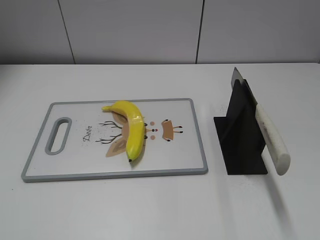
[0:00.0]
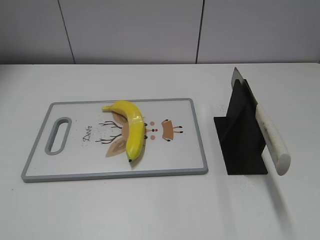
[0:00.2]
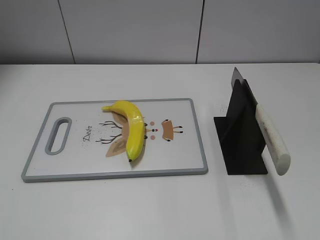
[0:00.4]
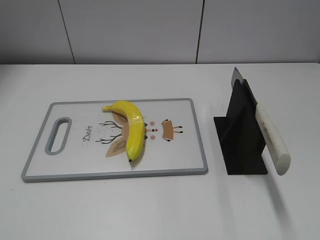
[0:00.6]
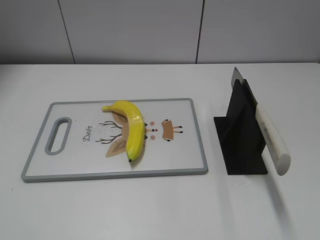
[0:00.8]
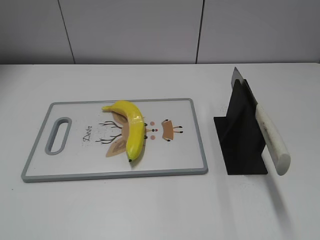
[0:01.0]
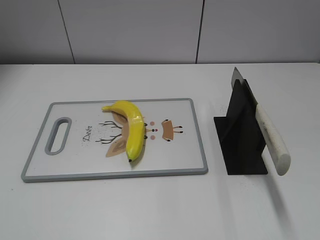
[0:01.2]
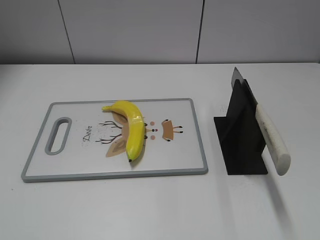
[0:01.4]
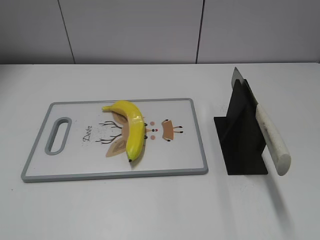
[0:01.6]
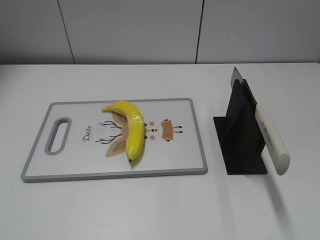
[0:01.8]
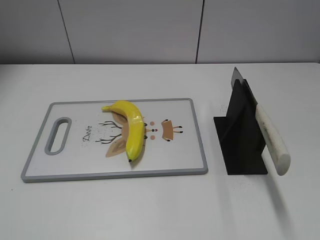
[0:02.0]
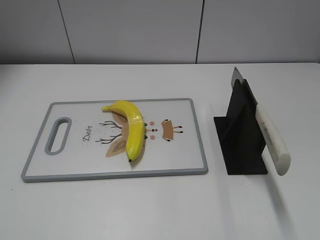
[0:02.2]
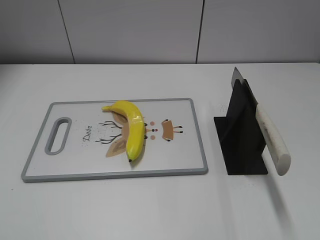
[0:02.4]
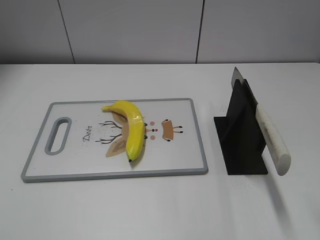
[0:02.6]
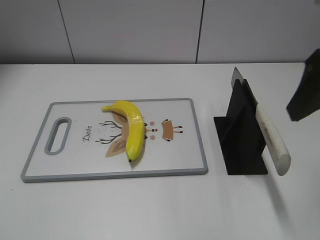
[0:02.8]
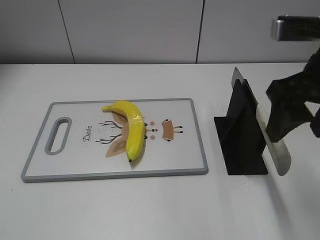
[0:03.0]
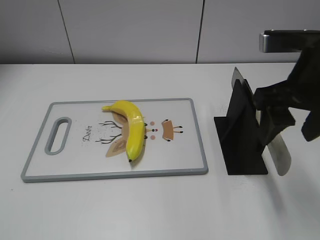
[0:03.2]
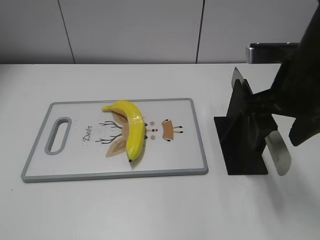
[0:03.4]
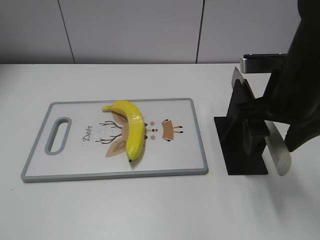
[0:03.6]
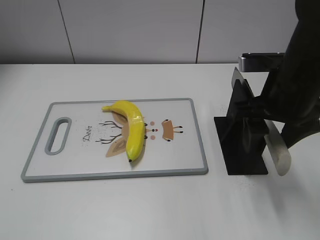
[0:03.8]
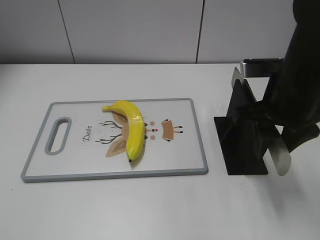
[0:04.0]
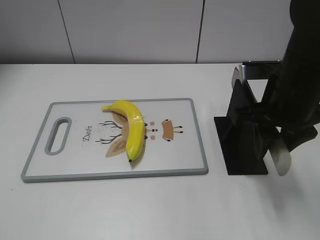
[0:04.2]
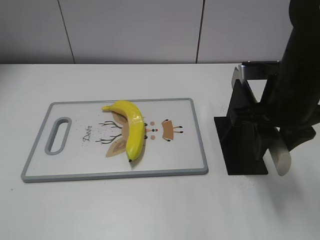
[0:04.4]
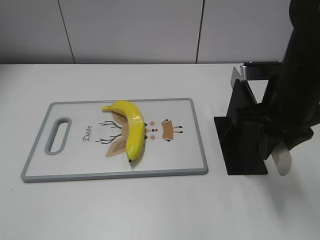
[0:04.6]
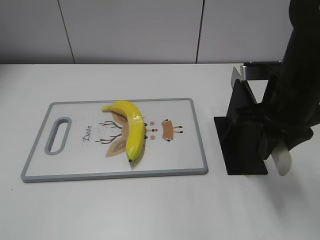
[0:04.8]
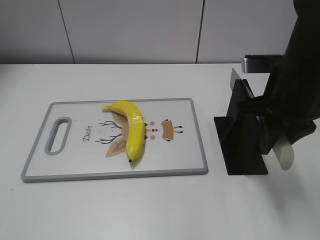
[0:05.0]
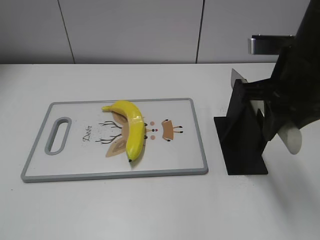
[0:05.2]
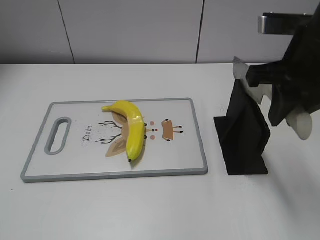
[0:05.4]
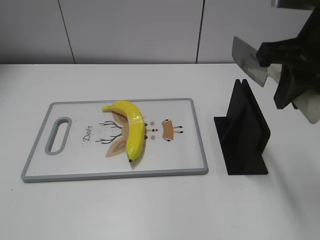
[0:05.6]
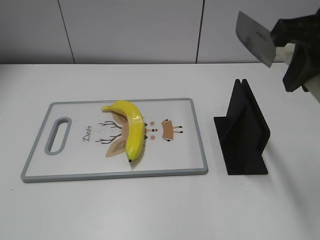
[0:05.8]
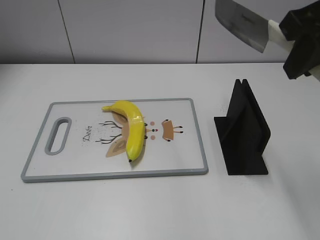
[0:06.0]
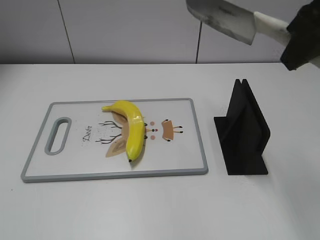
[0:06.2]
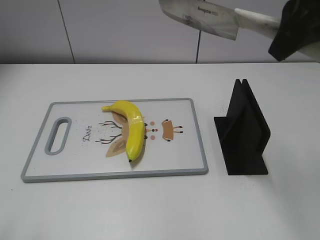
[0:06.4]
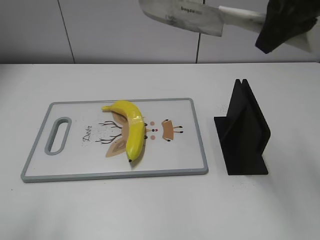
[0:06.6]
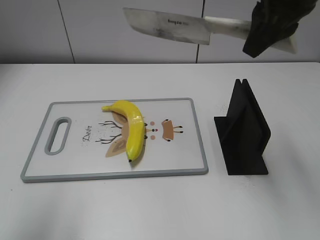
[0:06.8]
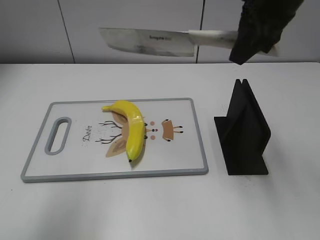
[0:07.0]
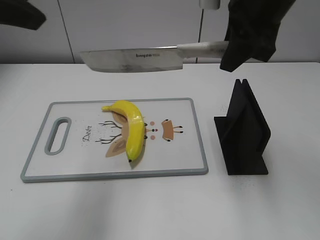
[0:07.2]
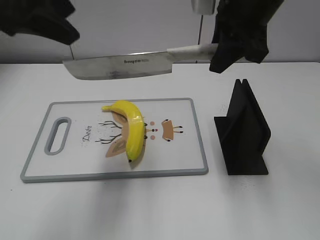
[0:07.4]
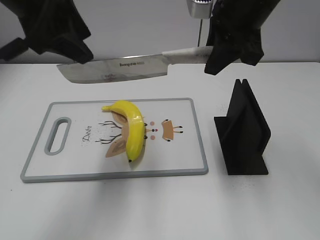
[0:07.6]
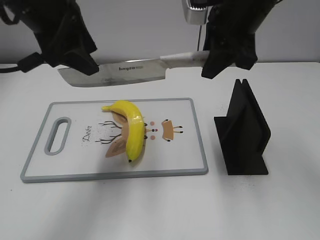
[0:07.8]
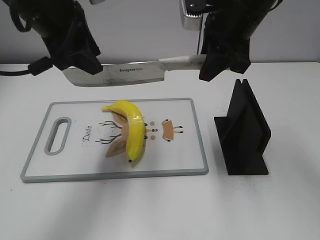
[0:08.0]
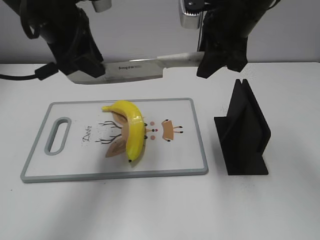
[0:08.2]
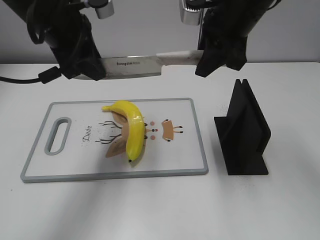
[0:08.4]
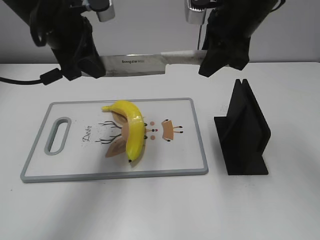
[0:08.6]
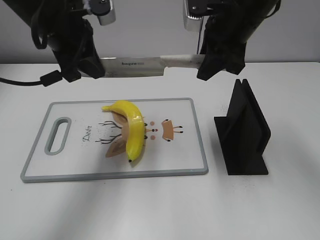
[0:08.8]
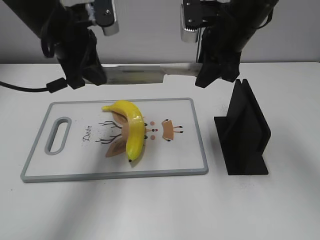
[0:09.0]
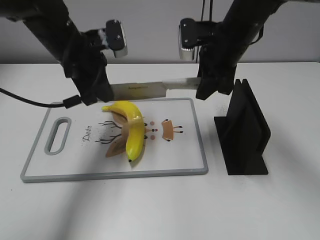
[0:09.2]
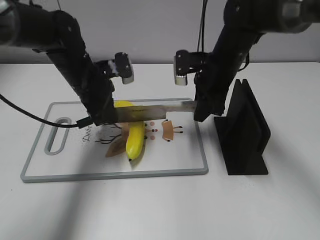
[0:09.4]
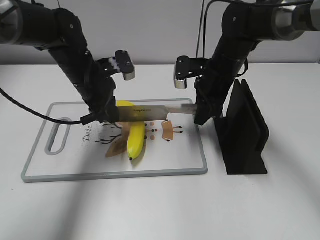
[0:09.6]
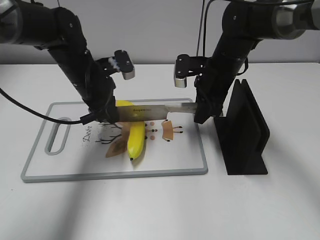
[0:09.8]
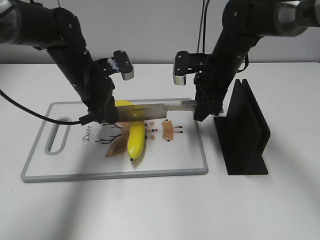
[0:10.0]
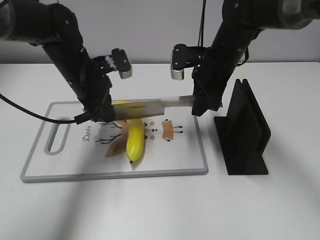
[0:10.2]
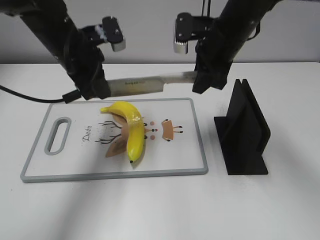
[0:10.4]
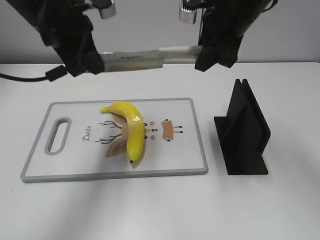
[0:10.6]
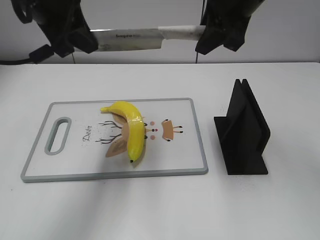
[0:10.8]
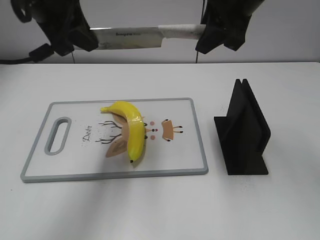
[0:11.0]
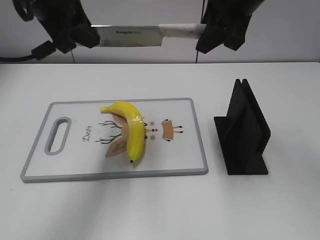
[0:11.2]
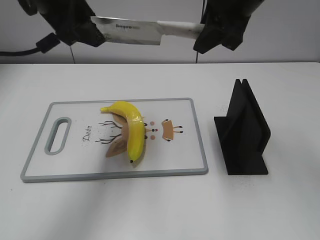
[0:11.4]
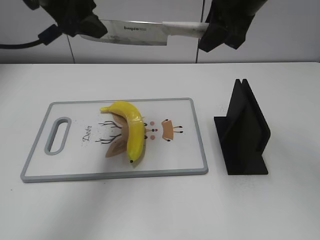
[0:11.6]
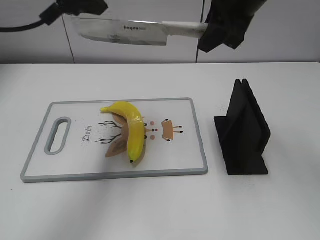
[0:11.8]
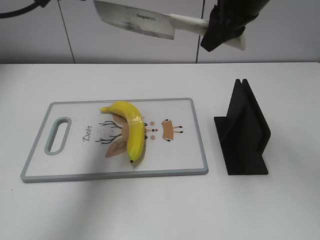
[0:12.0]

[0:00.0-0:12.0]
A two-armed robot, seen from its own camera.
Task of the whole recording: cut plastic banana.
Step, 0:00.0 to 0:06.0: Grab the knife handle with your right hand.
Step, 0:06.2 to 0:11.0: Lift the knife with your right hand.
0:01.6 to 0:03.0: The right gripper moves forward and to the left, roughly 25 cm.
0:03.0 to 0:04.4: The right gripper heads downward, covering about 5 cm, and closes its fingers.
0:04.4 to 0:06.0: The right gripper shifts some 15 cm upward.
0:06.0 to 0:07.6: The left gripper travels forward and to the right by roughly 35 cm, while the right gripper moves forward, to the left and downward, approximately 15 cm.
0:07.6 to 0:09.0: The right gripper travels downward by about 5 cm. The left gripper goes approximately 10 cm downward and forward, and closes.
0:09.0 to 0:10.4: The left gripper reaches some 10 cm downward, then returns, while the right gripper reaches approximately 10 cm downward, then returns.
0:10.4 to 0:12.0: The right gripper travels upward by some 10 cm. Meanwhile the left gripper goes approximately 15 cm upward, and opens.

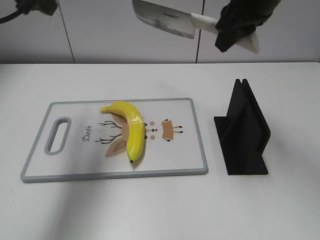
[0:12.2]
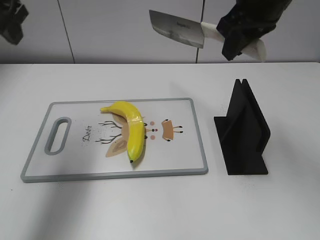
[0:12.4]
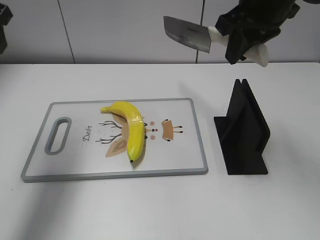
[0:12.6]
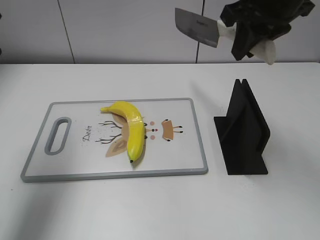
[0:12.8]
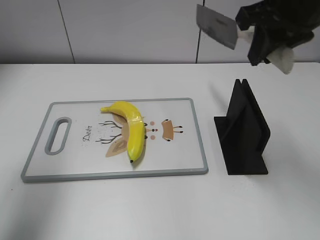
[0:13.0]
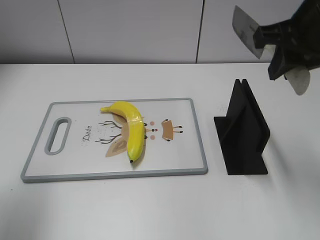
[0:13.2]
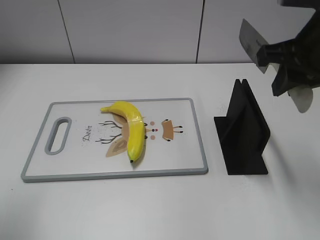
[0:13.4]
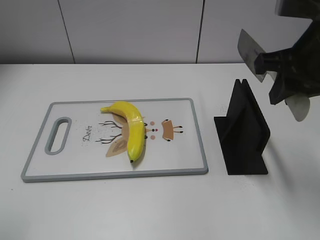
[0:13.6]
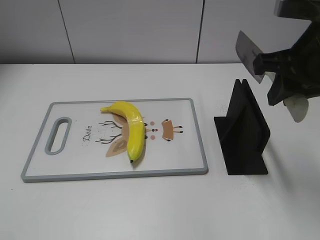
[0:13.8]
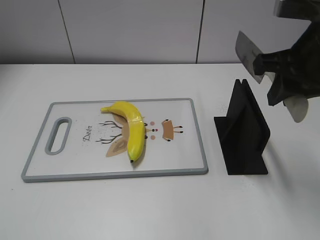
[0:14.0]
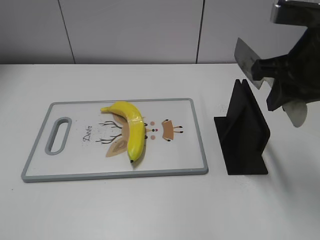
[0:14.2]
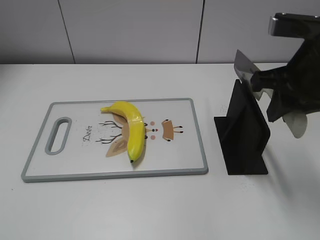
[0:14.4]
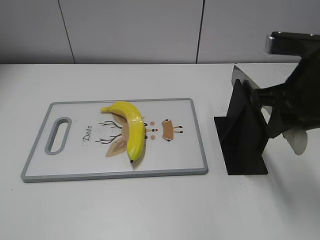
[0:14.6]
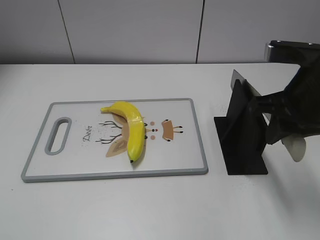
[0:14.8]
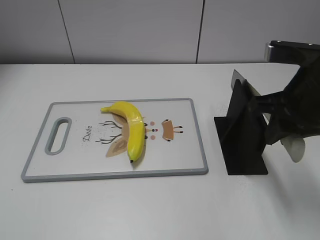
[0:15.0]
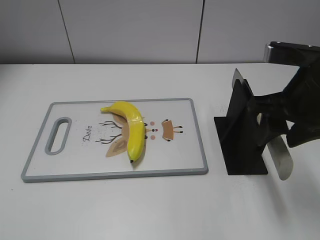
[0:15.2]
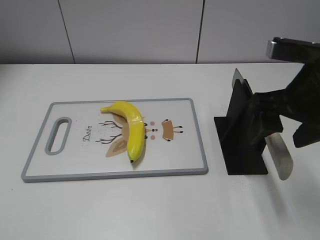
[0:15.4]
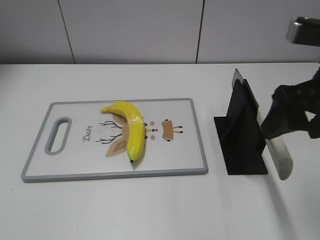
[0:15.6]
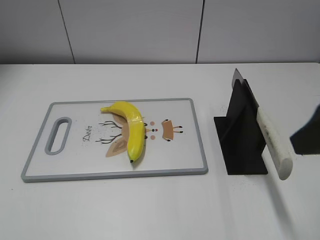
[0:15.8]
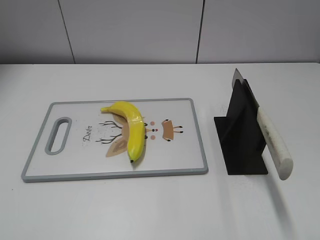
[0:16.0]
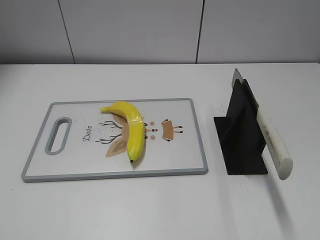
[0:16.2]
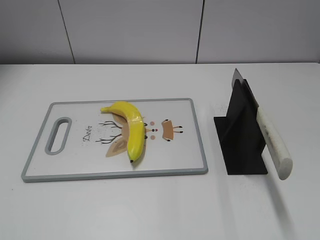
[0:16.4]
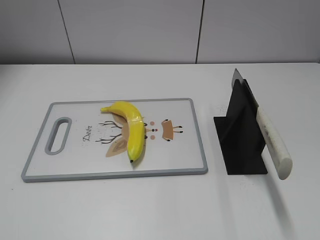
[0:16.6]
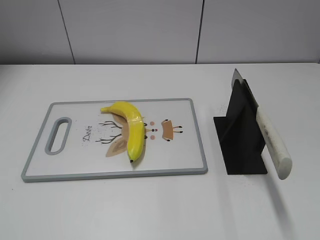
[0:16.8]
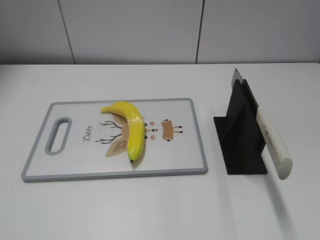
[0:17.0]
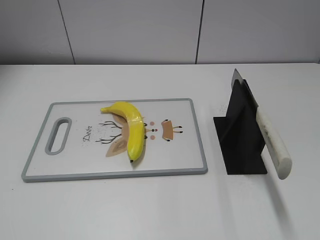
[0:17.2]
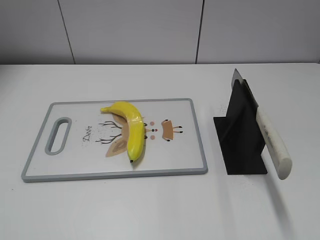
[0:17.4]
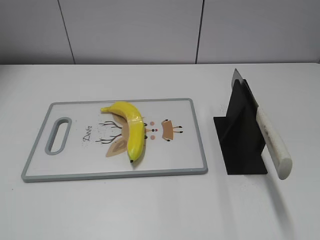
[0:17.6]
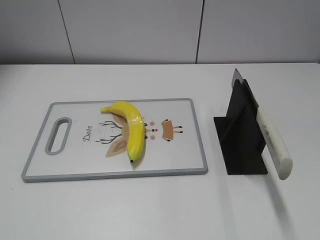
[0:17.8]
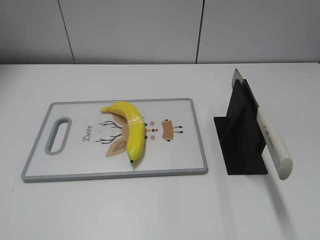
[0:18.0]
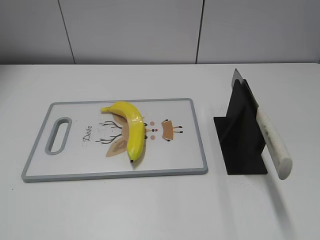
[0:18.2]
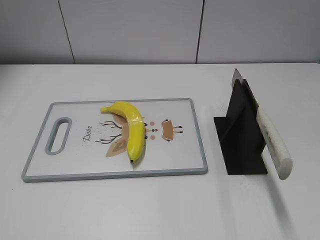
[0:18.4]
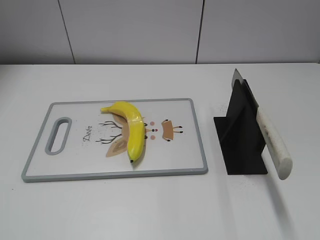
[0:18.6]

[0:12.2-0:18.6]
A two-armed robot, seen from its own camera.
Task of the whole recording: cut plastic banana.
Step, 0:12.6 to 0:14.2: Lift the knife with your right hand.
Step, 0:14.4 to 0:18.6: Place the knife on the storage rack with your right hand.
0:12.2 to 0:13.8: The right gripper is displaced backward and to the right by about 10 cm. Meanwhile the left gripper heads backward, covering approximately 30 cm.
0:13.8 to 0:15.4: The right gripper opens.
0:15.4 to 0:17.0: The right gripper travels backward and to the right by approximately 25 cm.

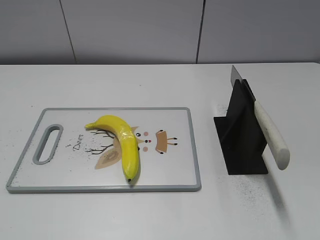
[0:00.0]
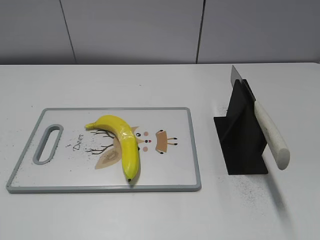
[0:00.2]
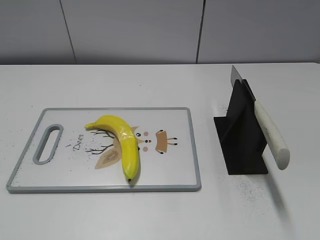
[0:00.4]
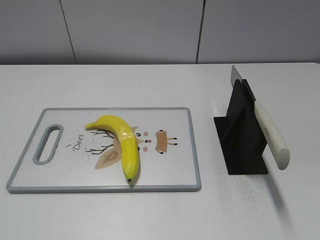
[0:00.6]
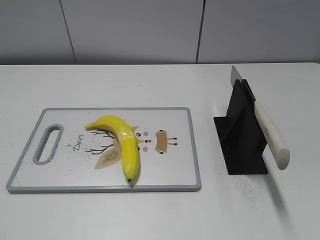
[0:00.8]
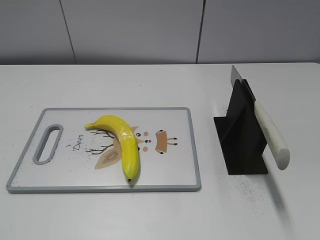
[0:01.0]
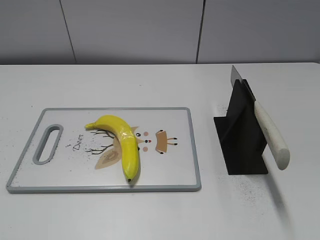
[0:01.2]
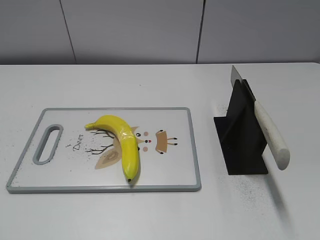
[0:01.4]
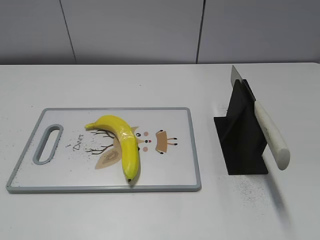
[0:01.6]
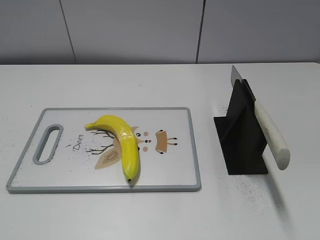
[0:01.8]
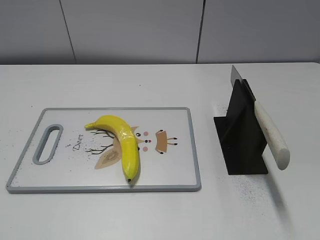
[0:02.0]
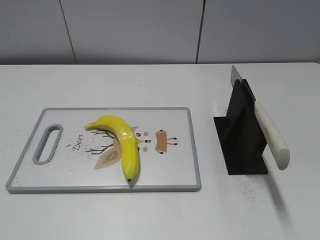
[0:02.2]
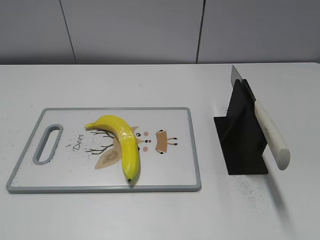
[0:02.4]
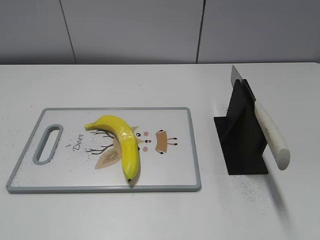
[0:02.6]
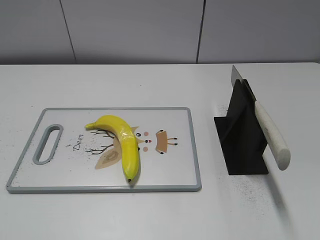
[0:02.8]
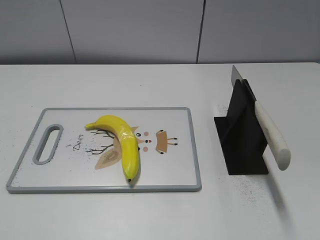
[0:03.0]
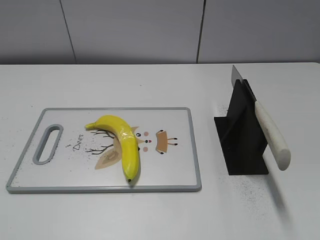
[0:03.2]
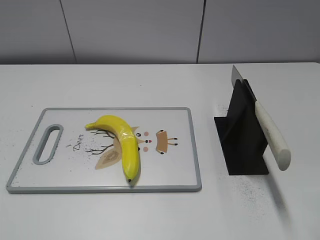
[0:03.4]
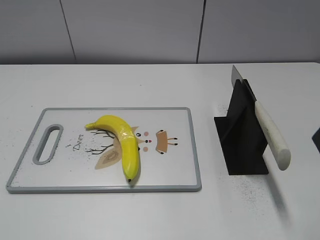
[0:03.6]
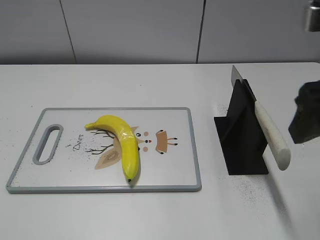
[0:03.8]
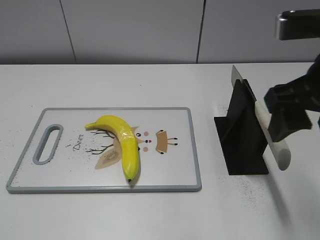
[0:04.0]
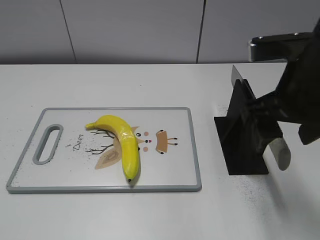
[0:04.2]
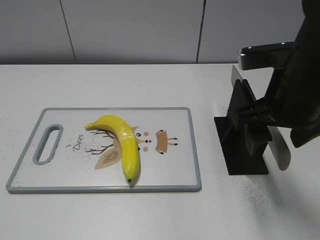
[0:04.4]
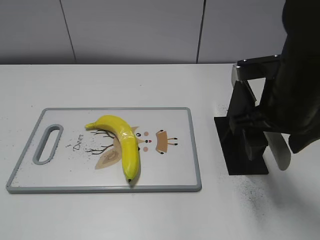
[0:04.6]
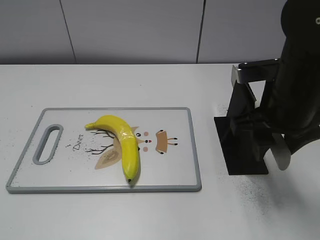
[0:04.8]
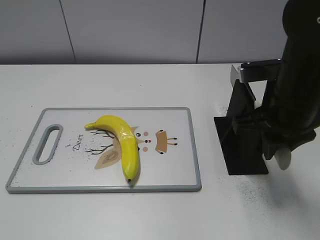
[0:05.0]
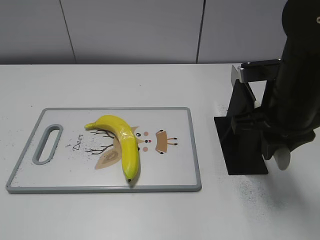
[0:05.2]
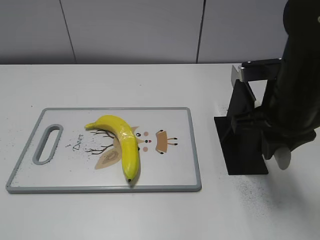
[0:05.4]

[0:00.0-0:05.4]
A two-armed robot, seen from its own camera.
Task of the whole recording: cut plastic banana.
0:02.8 to 0:04.0: The right gripper moves forward, to the left and downward, some 15 cm.
0:04.0 to 0:05.4: The right gripper shifts about 5 cm downward, and closes.
